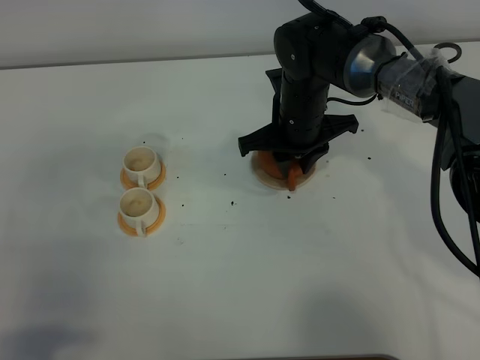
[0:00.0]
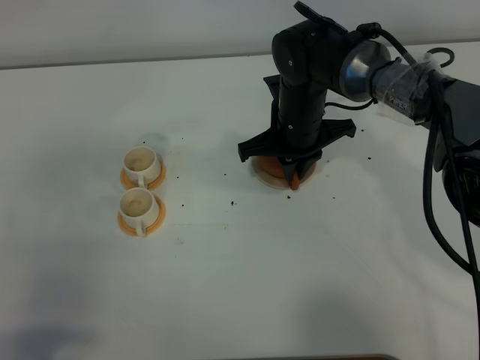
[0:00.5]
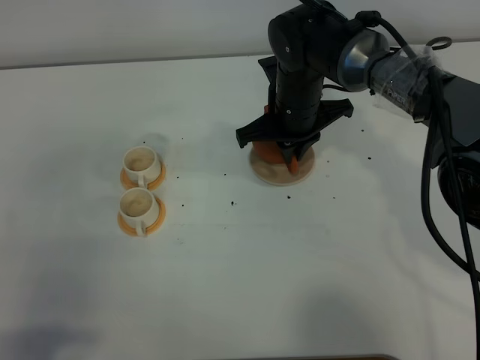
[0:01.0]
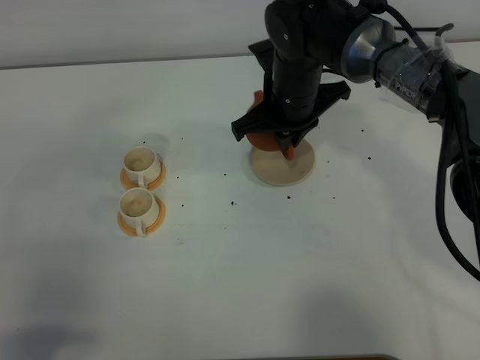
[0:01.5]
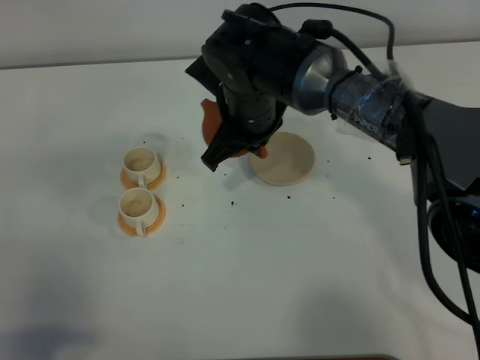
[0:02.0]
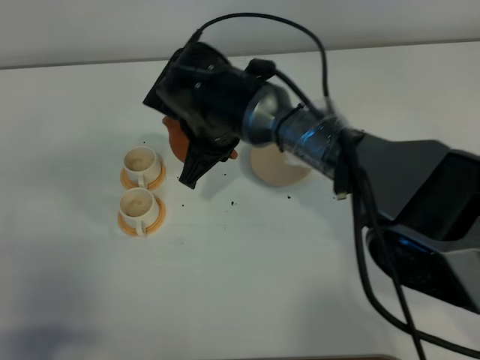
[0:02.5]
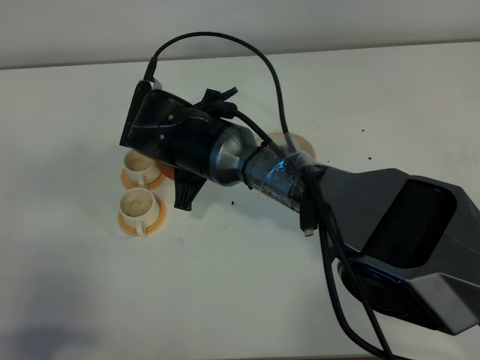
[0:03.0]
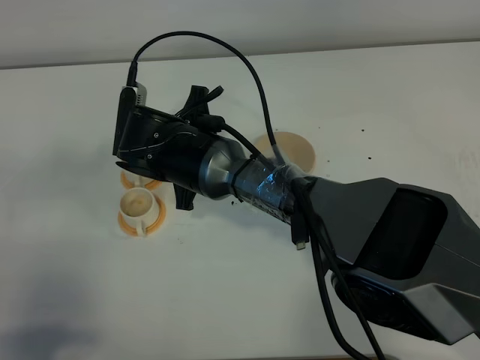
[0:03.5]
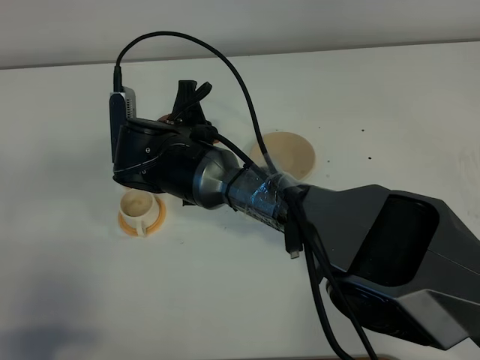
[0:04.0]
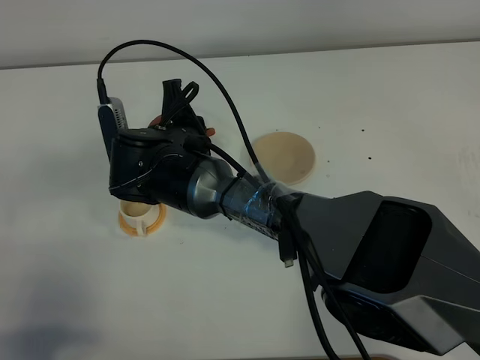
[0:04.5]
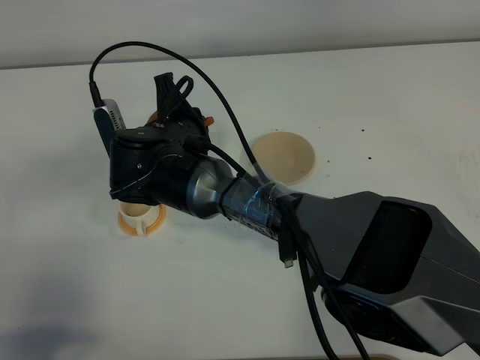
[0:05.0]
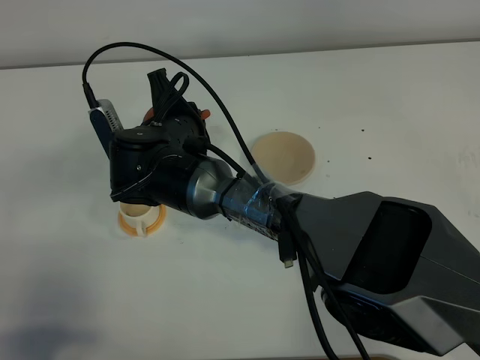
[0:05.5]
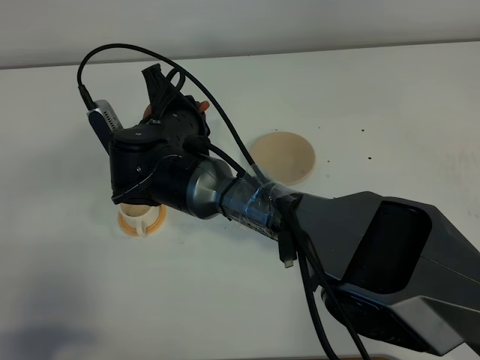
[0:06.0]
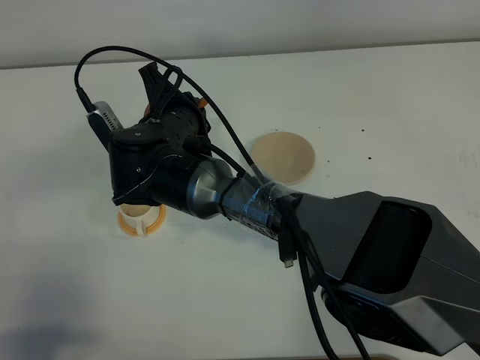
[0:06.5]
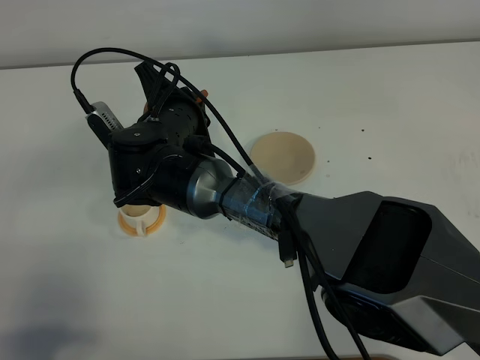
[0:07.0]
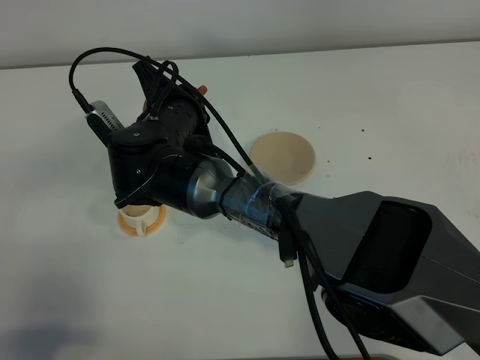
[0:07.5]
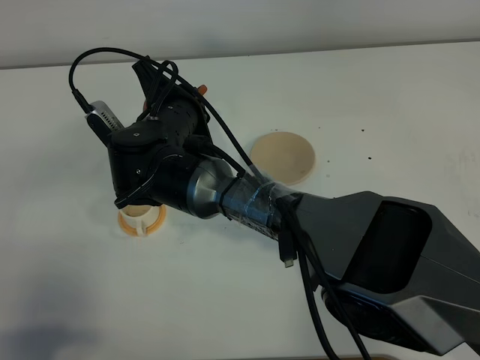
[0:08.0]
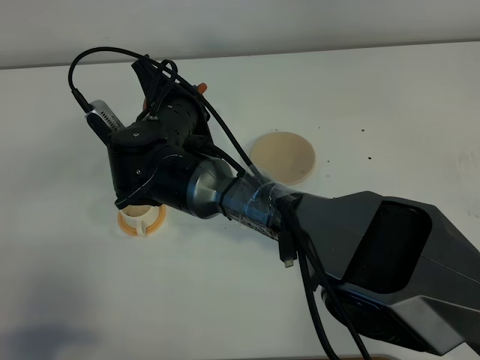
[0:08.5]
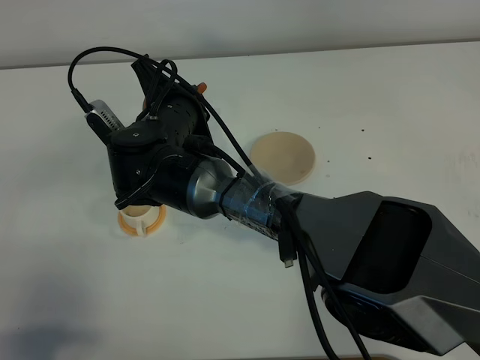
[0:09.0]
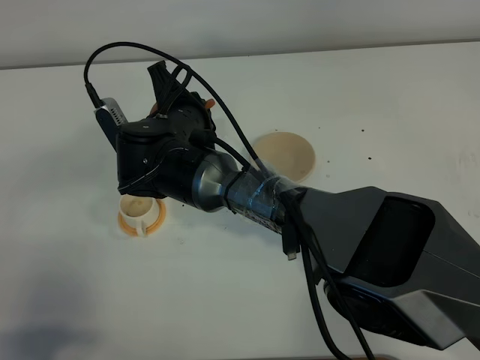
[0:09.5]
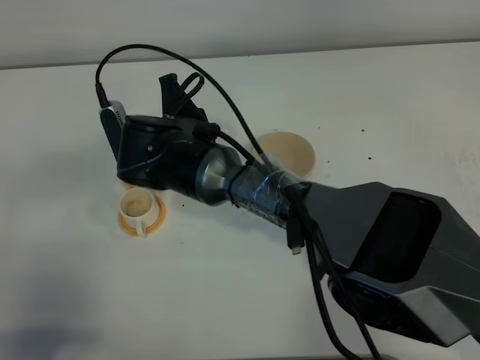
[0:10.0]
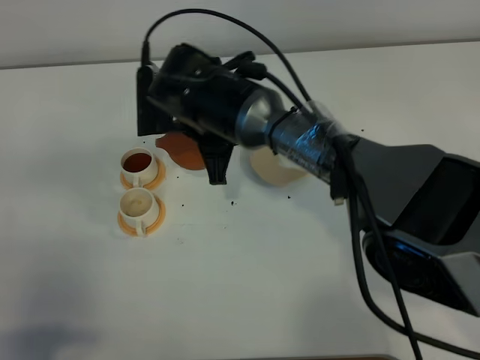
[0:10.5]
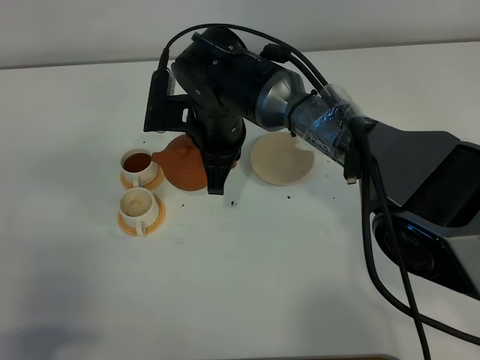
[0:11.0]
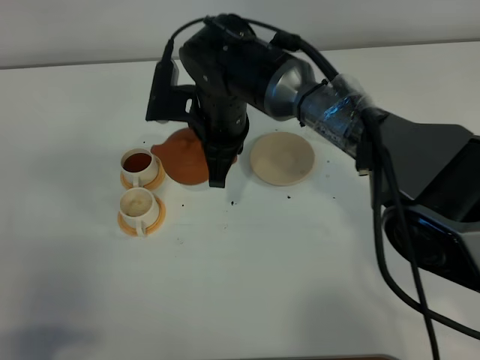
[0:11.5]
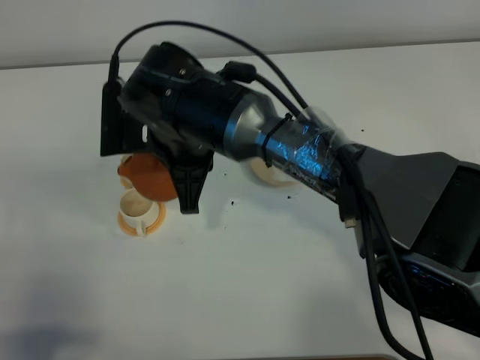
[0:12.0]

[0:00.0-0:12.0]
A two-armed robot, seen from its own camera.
Task of the whole recording: grasp the brown teapot and pour the tea into the two white teacups one by one, put the brown teapot back in its original place.
Step, 0:01.5 to 0:10.0: Pour tea into the teacup with the right gripper.
0:00.0 to 0:02.0: The right gripper moves to the left, some 5 cm, and closes up.
0:02.0 to 0:04.0: The right gripper is displaced to the left and downward by approximately 10 cm.
0:06.0 to 0:08.0: The grippers stay close to where they were, moving slightly.
0:10.0 to 0:12.0: The right gripper changes place by some 5 cm.

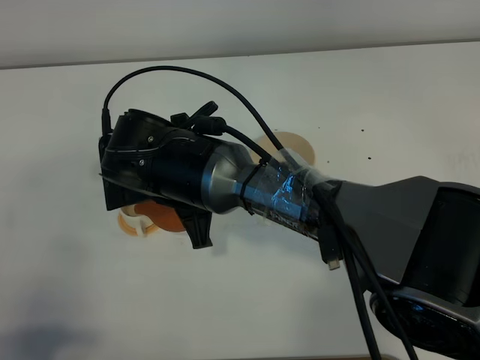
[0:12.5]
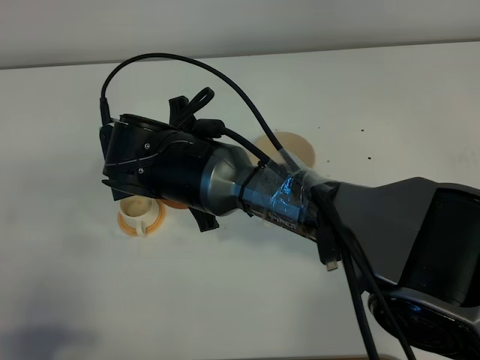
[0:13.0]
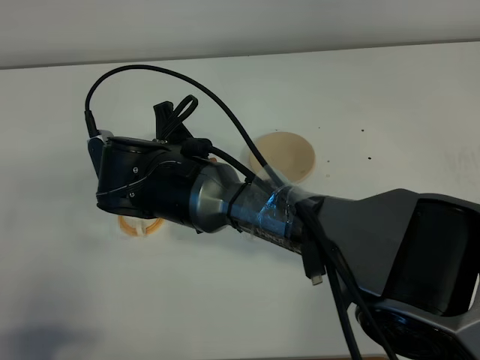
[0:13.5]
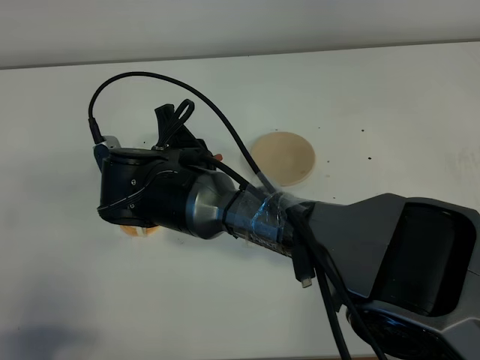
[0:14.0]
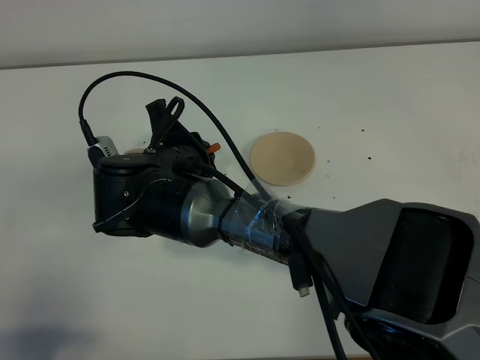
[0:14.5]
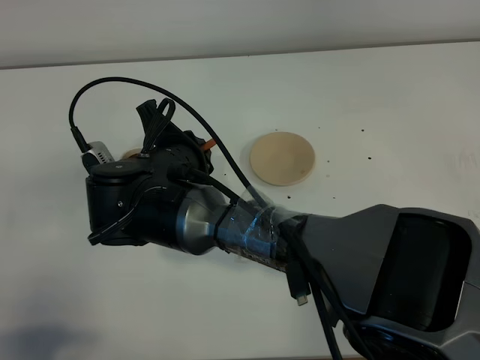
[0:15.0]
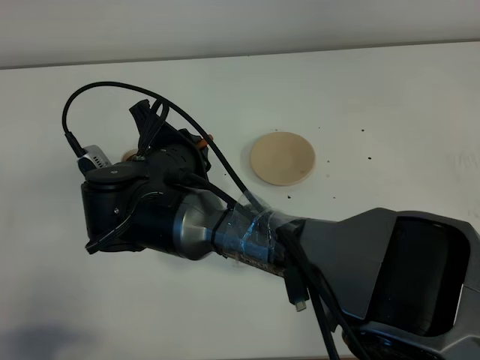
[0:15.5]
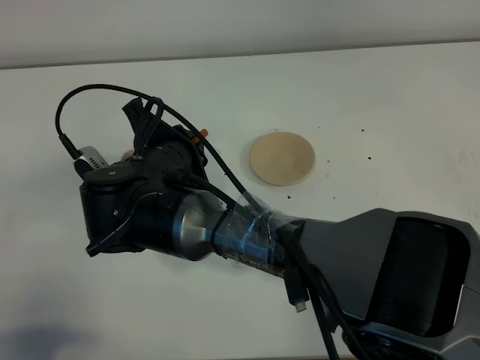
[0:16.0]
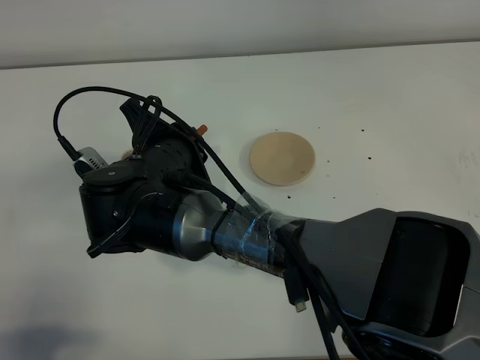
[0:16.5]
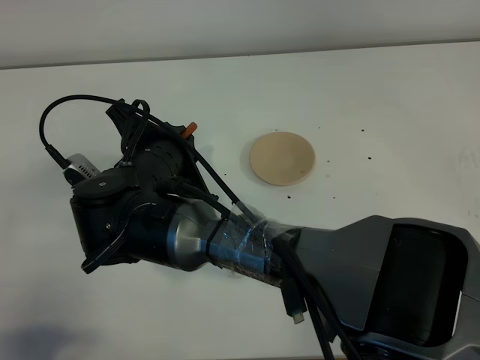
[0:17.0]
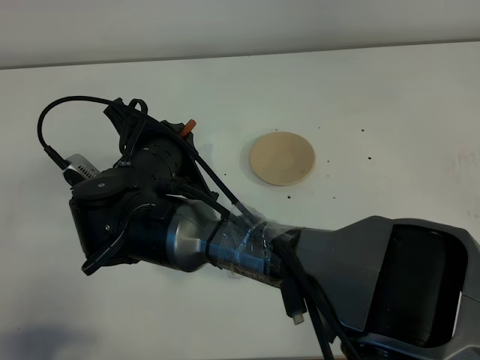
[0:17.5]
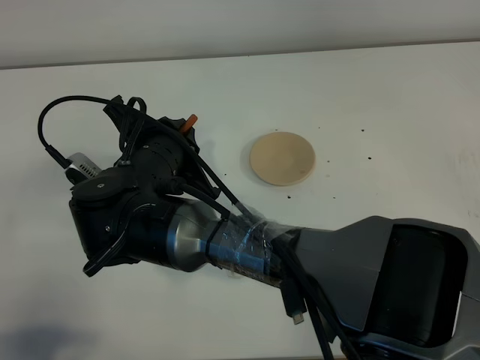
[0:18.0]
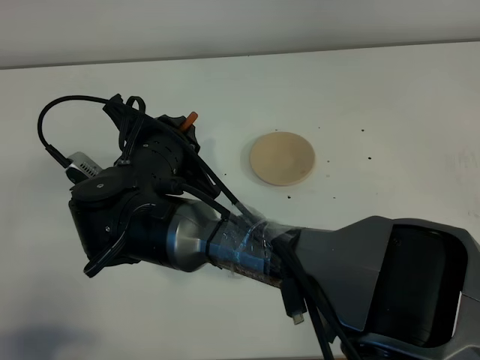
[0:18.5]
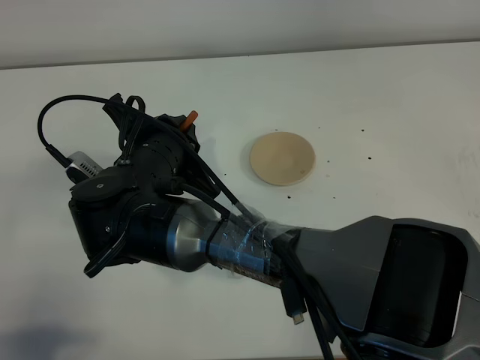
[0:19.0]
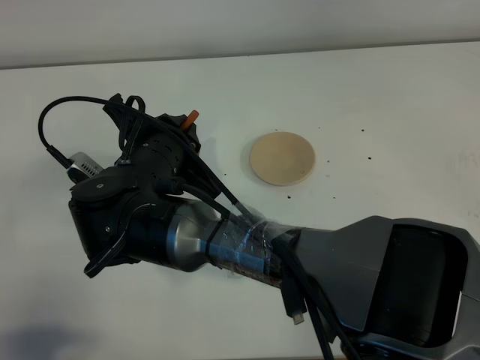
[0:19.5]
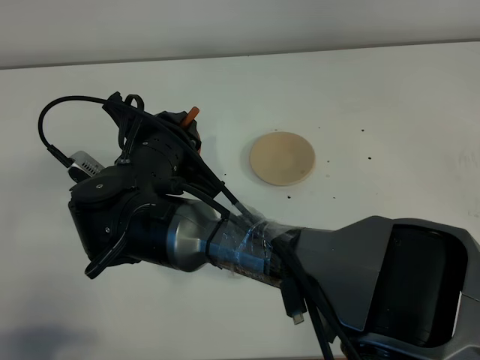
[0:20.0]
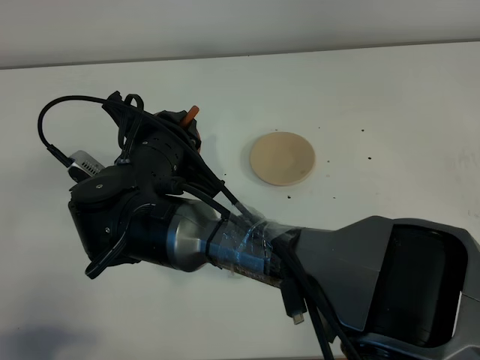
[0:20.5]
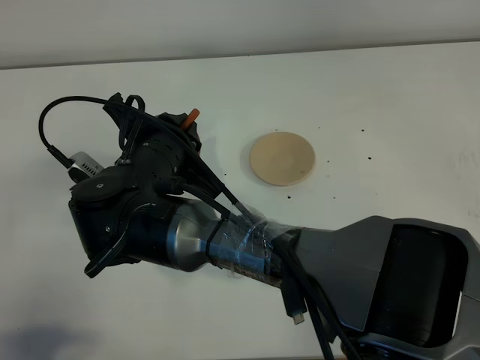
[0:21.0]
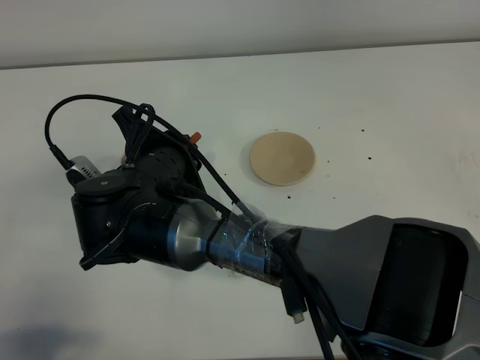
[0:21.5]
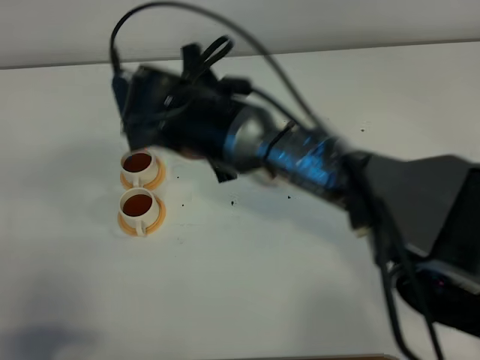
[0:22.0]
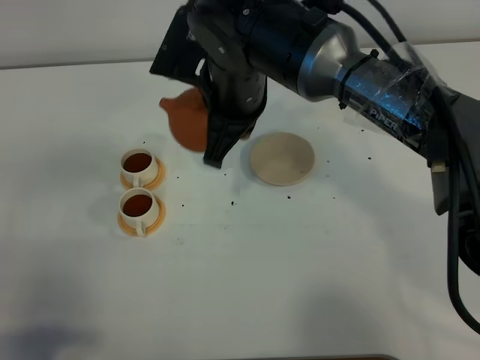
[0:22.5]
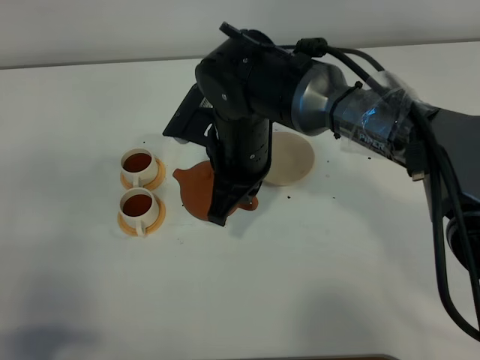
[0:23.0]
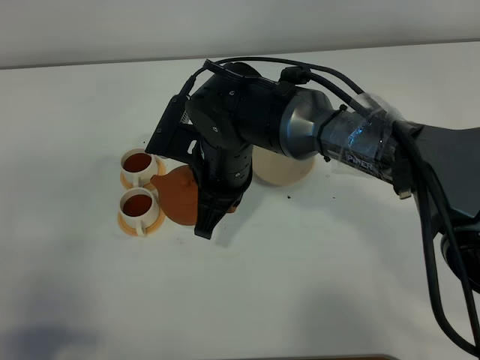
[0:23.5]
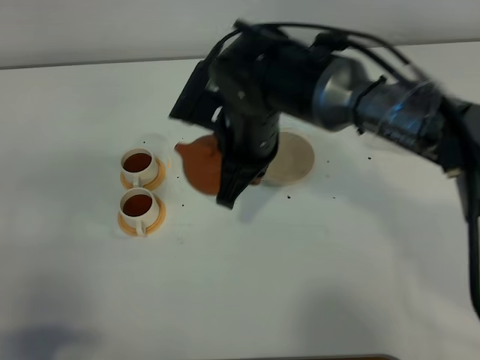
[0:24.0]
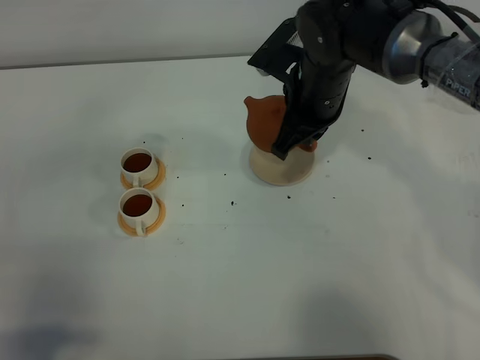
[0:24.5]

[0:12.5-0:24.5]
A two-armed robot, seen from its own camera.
Task of the whole recording: grasp the brown teapot and pour the tea into the two white teacups one by one, put the brown teapot back in its original place.
Step, 0:12.5 to 0:21.5: Pour tea into the teacup with the right gripper.
0:14.5 to 0:16.5: There are only small adjustments of the grippers.
0:16.5 to 0:18.5: The grippers make only small movements.
0:18.5 to 0:20.5: Both grippers stay about where they are.
0:20.5 to 0:22.5: The right gripper goes about 15 cm to the right, forward and upward.
0:22.5 to 0:24.5: The right gripper goes about 10 cm to the right, forward and downward.

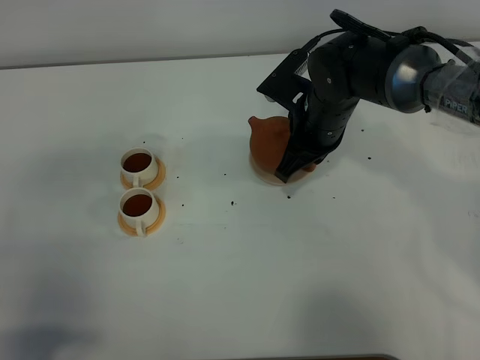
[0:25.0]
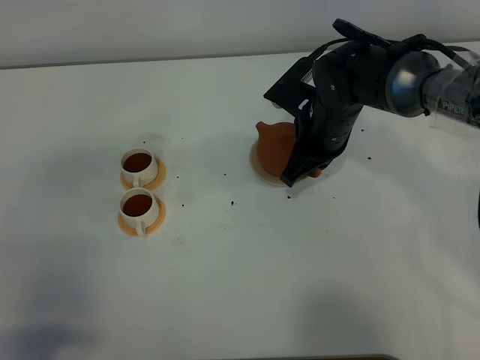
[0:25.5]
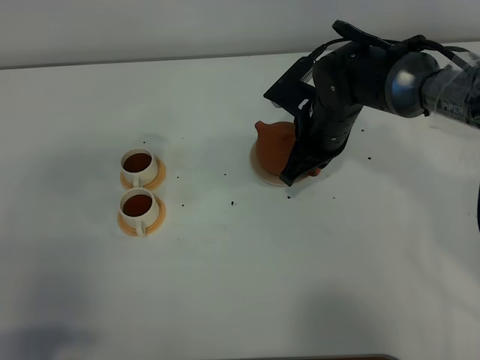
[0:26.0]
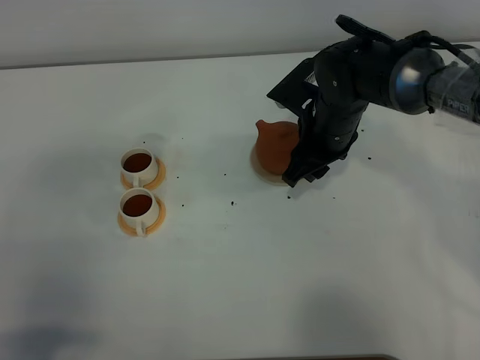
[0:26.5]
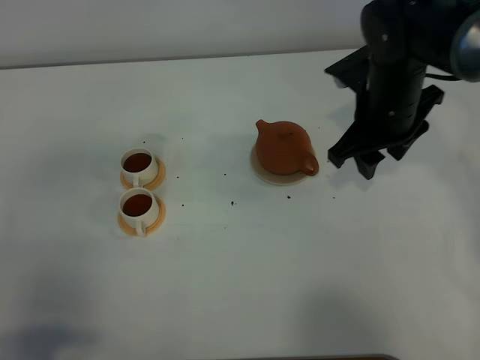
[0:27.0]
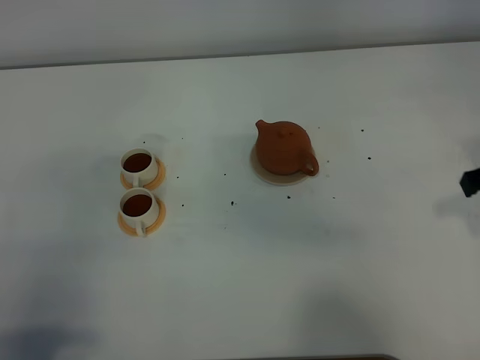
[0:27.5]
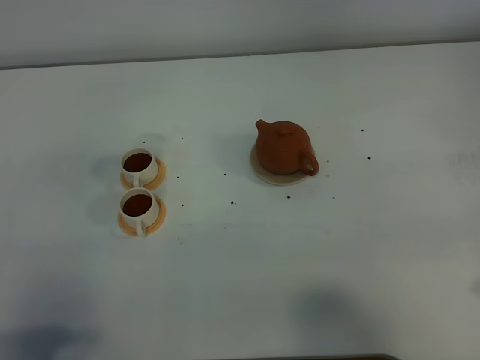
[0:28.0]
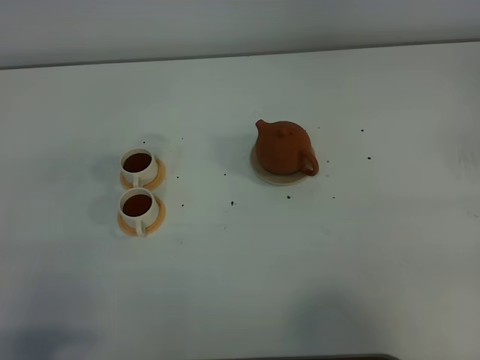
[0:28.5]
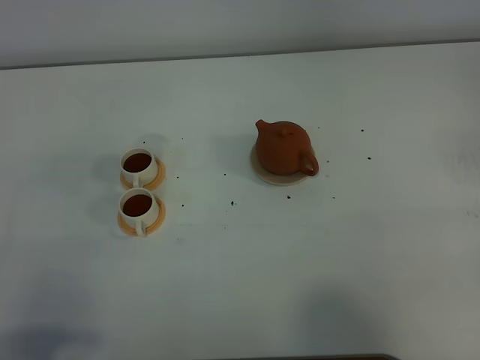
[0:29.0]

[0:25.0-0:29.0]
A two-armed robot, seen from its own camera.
Task of the whole recording: grasp the brown teapot and pour the tea into the two white teacups one by one, put the brown teapot back in its original place.
0:25.0 to 0:27.0: The right gripper heads to the right and upward, covering some 10 cm, and opens up.
0:27.0 to 0:29.0: The right gripper goes about 40 cm backward and to the right.
